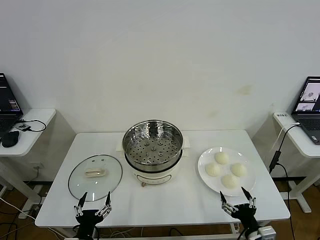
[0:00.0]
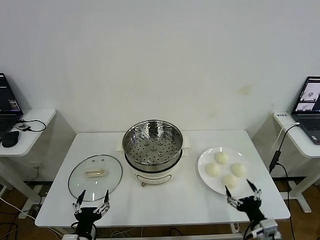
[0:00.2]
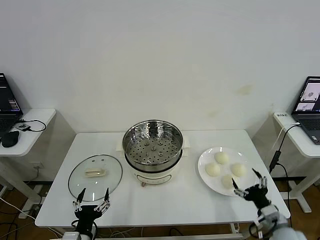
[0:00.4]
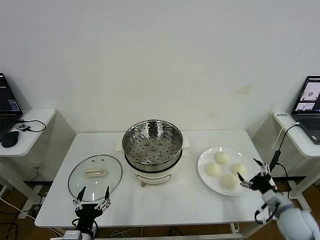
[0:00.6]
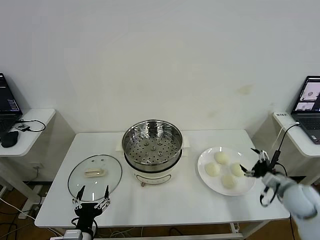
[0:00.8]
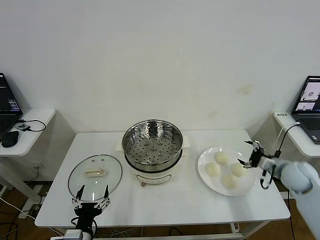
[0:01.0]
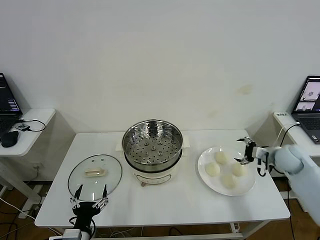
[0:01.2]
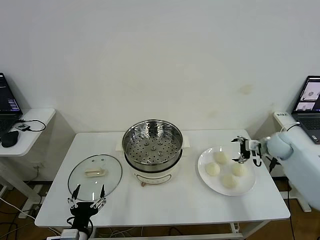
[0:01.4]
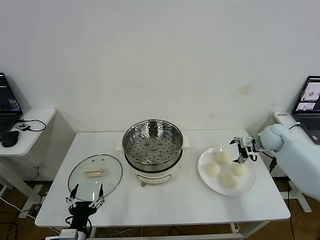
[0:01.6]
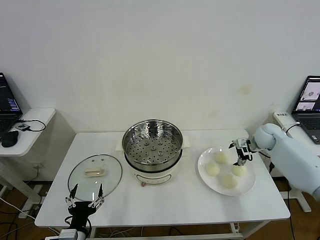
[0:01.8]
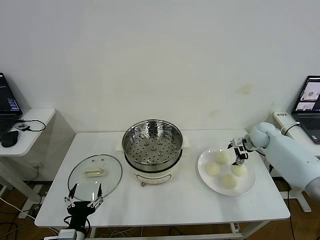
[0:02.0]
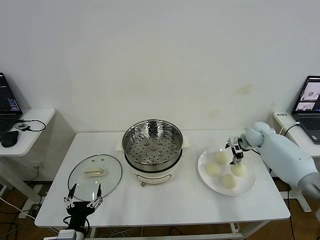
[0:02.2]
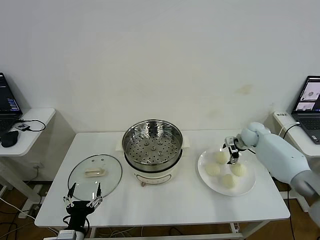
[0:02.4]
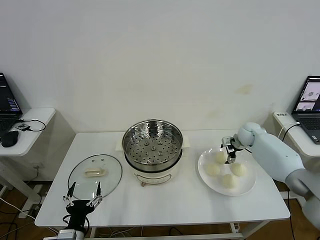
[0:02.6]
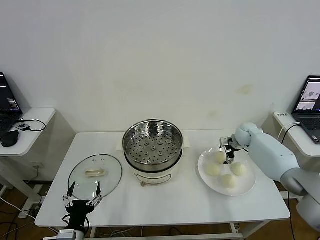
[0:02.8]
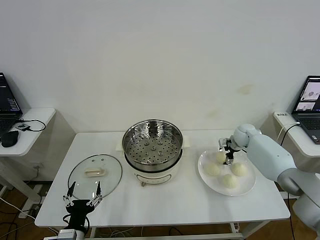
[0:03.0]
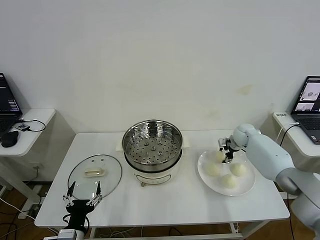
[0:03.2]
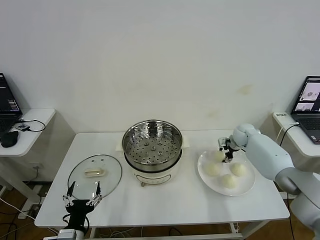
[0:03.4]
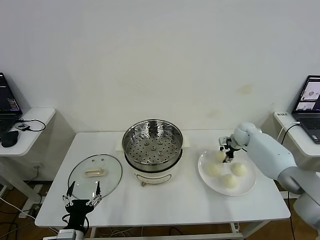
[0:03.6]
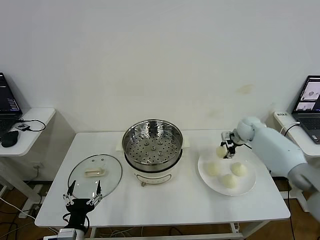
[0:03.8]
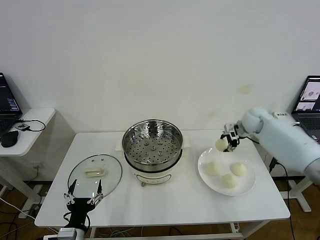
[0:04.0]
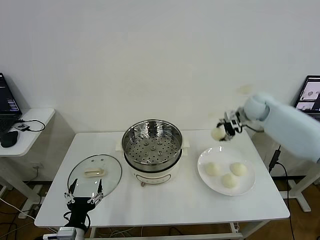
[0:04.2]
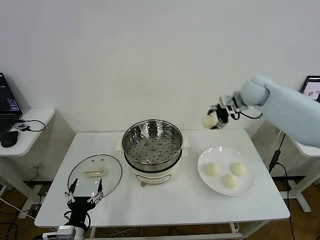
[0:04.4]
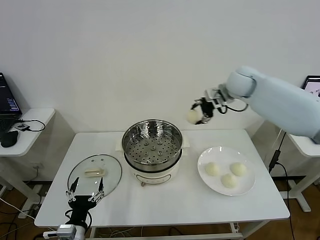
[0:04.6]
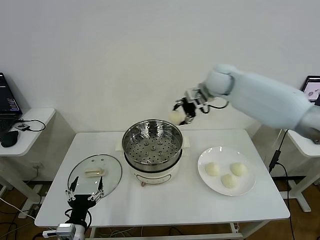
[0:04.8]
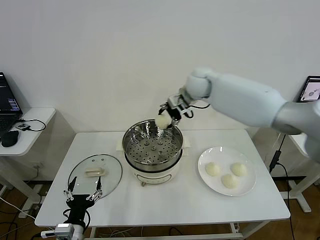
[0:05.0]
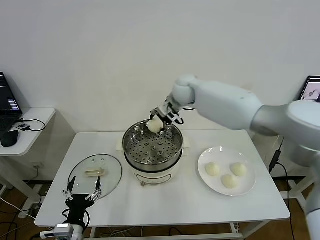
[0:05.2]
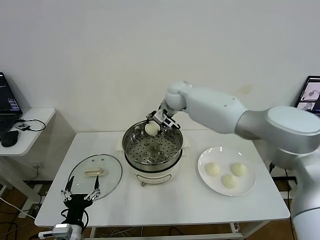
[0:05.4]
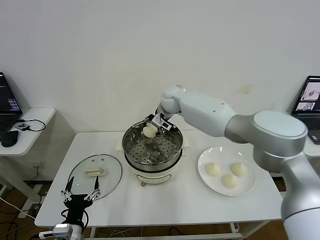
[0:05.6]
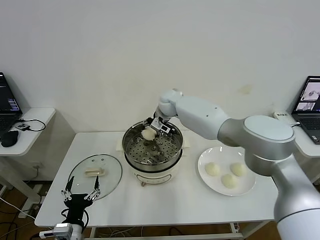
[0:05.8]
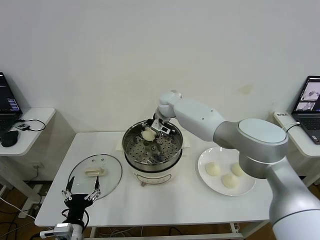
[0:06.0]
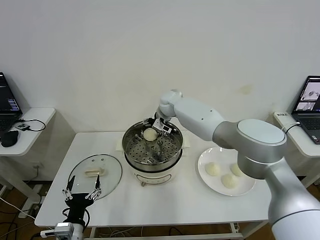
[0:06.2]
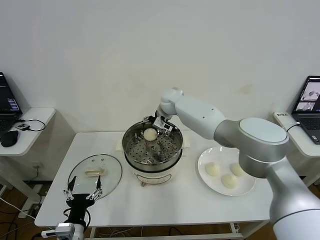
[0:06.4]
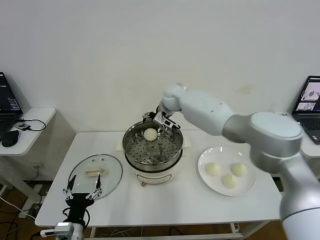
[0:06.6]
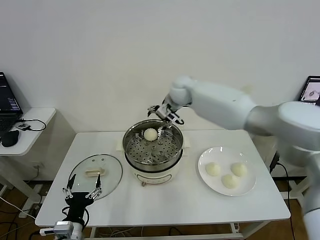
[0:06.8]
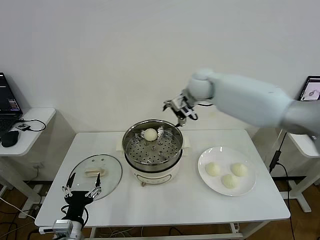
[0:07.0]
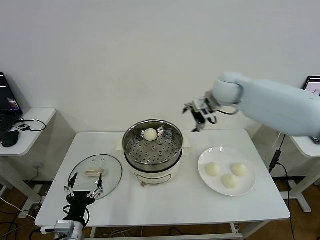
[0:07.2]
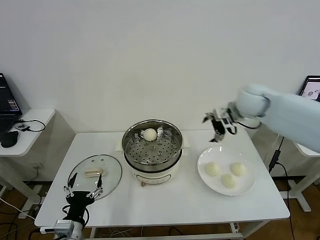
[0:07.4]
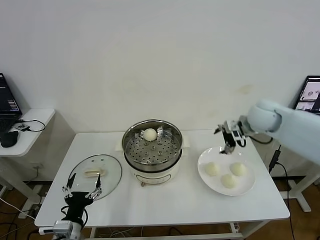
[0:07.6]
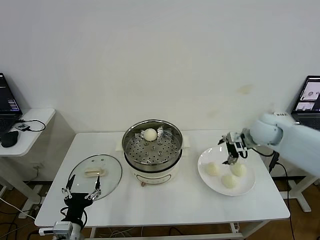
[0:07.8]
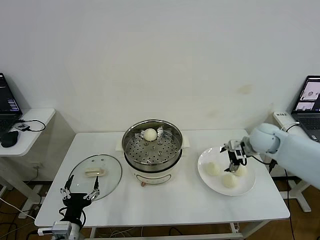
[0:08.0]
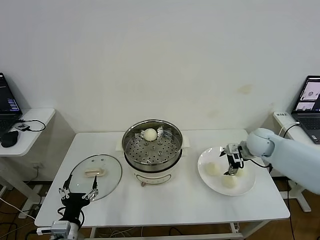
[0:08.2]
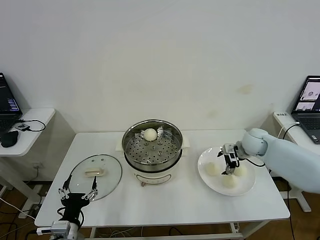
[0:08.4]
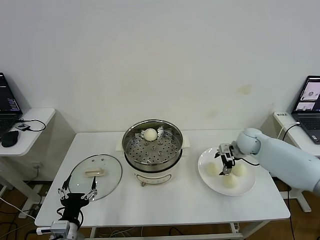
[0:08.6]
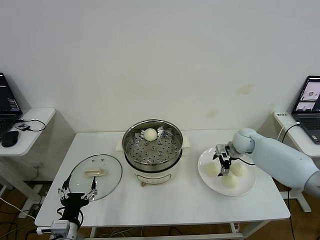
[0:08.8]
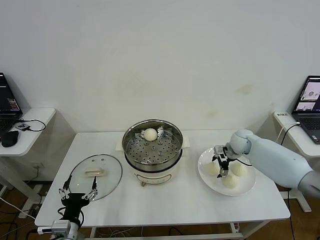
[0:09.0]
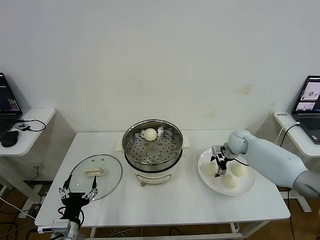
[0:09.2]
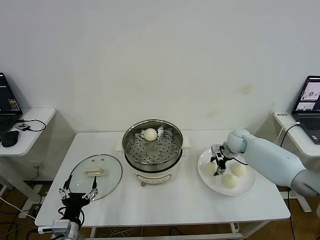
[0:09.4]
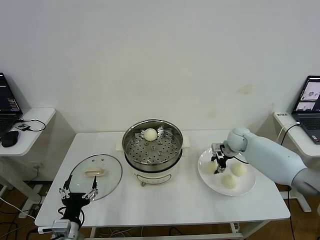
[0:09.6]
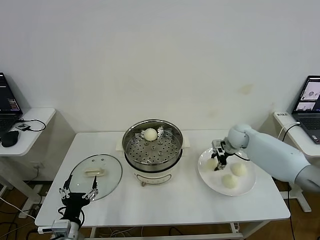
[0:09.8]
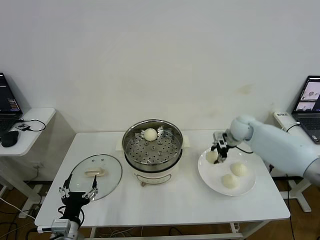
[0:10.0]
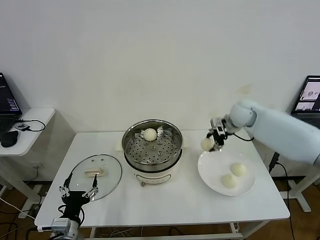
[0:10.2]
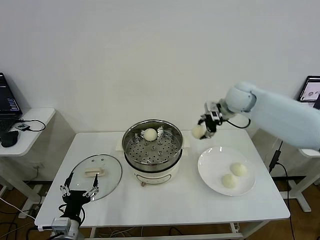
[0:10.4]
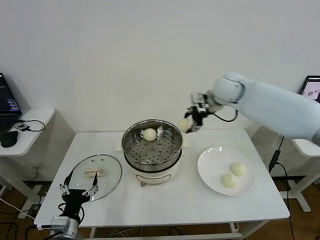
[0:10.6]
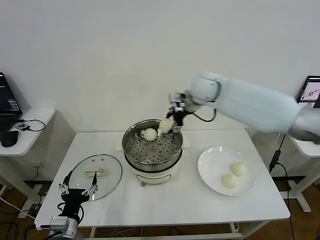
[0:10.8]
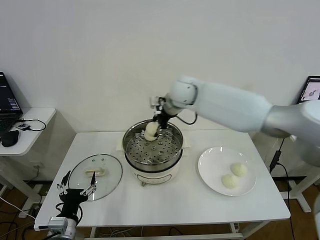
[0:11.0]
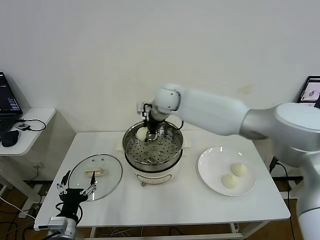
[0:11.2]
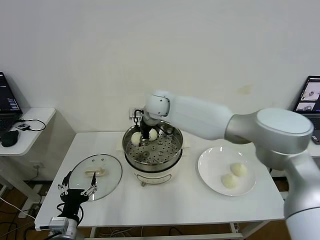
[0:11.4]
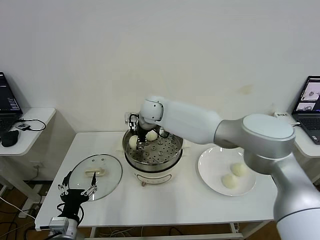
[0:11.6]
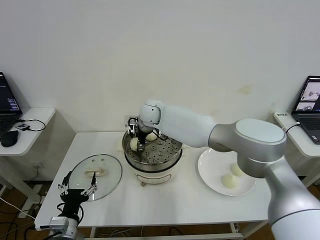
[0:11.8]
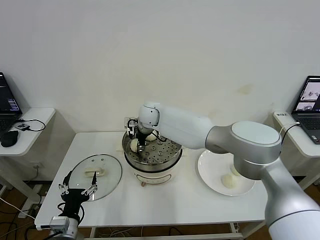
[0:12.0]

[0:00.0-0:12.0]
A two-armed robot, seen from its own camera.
Step, 0.0 to 3.0 s: Grasp the baozi in the plate with right gripper.
Step, 3.2 to 6.0 s: Place the baozi on the steamer with right gripper.
Step, 6.4 to 9.4 s: Grasp the baozi in the plate with right gripper.
1.6 to 3.0 s: The right gripper is displaced to the left and forward by roughly 10 cm, and closes.
3.0 to 4.4 s: The right gripper travels upward by about 25 cm.
4.4 to 6.0 s: The right gripper heads to the left and downward, covering roughly 25 cm.
6.0 to 7.6 s: The right gripper goes some 35 cm to the right and backward.
7.6 to 9.0 s: The right gripper travels downward and forward by some 15 cm.
9.0 to 10.4 s: The right gripper moves upward and to the left, roughly 25 cm, and closes.
10.4 to 12.0 s: The right gripper travels to the left and downward by approximately 30 cm, and opens up.

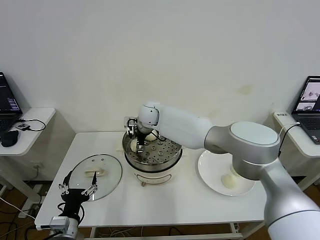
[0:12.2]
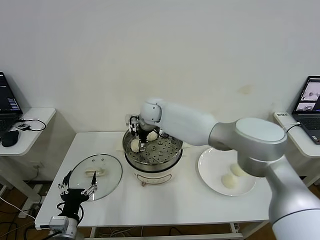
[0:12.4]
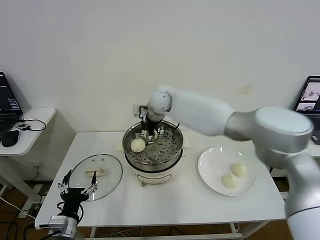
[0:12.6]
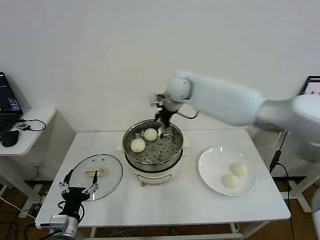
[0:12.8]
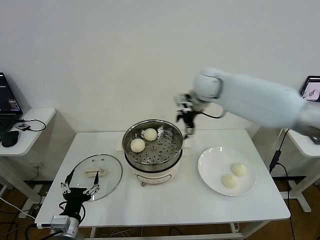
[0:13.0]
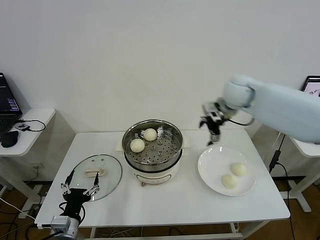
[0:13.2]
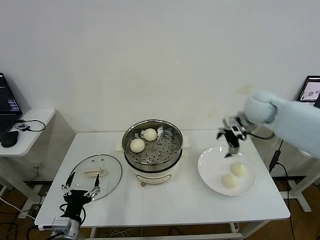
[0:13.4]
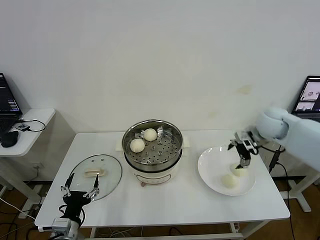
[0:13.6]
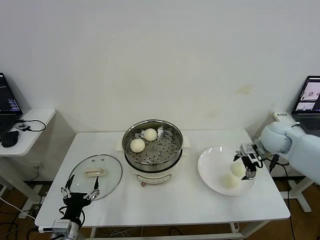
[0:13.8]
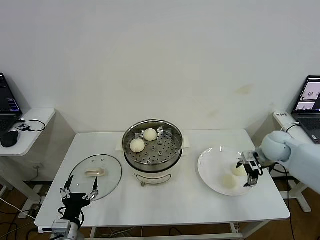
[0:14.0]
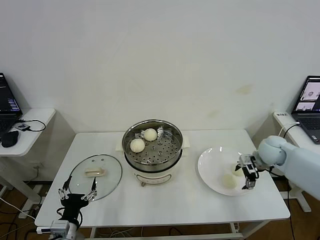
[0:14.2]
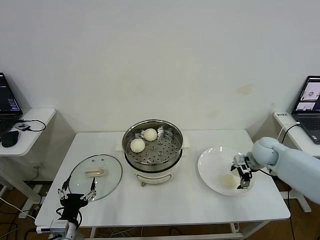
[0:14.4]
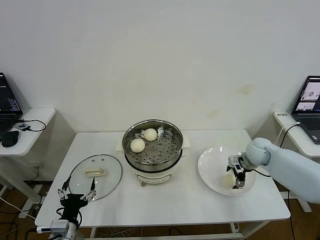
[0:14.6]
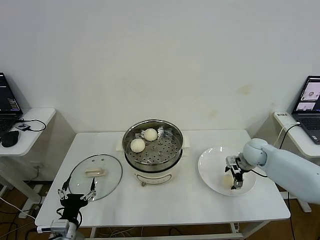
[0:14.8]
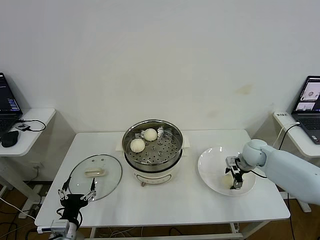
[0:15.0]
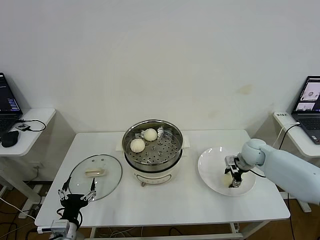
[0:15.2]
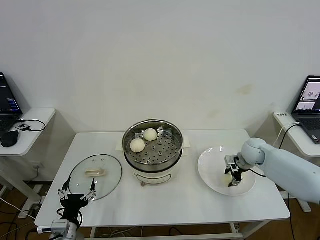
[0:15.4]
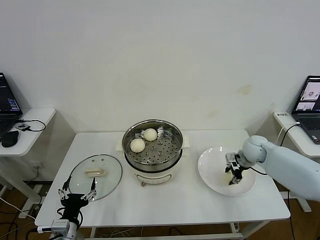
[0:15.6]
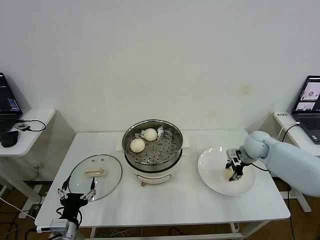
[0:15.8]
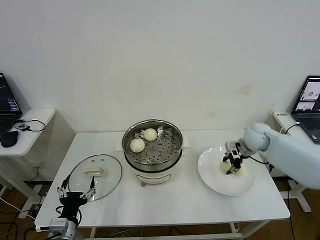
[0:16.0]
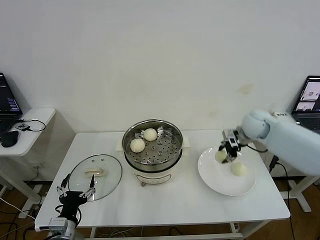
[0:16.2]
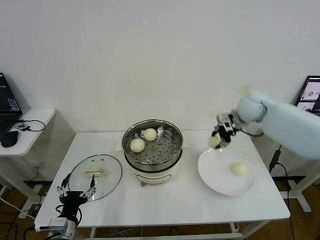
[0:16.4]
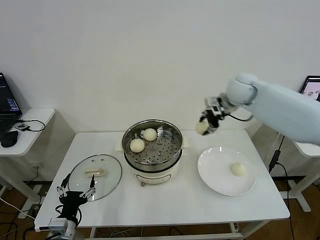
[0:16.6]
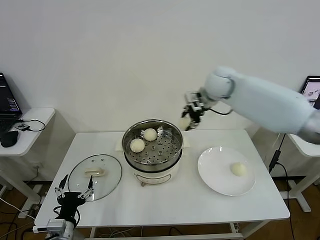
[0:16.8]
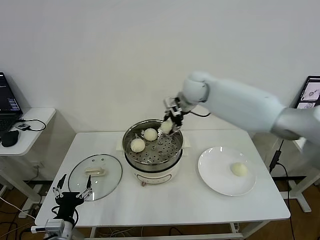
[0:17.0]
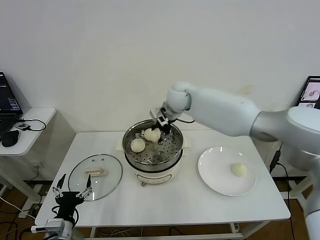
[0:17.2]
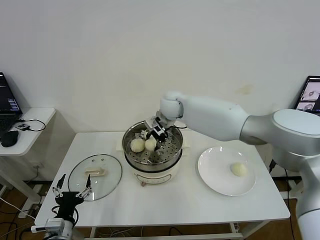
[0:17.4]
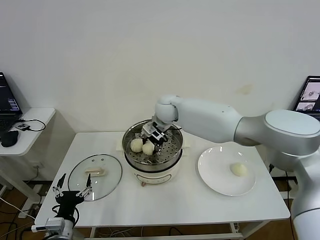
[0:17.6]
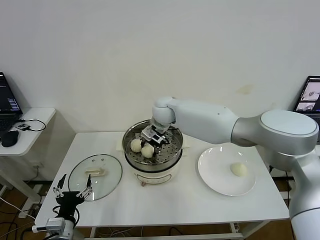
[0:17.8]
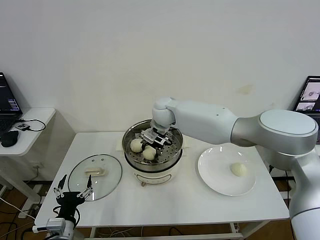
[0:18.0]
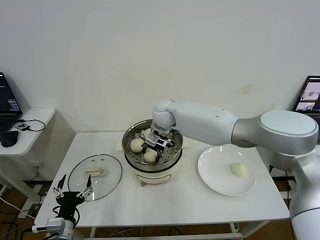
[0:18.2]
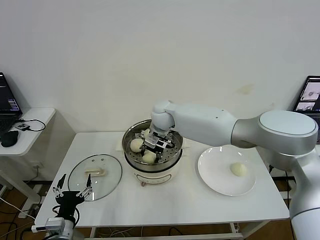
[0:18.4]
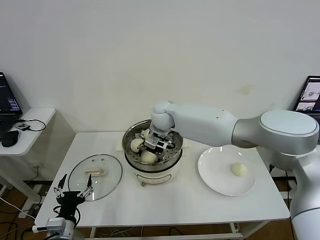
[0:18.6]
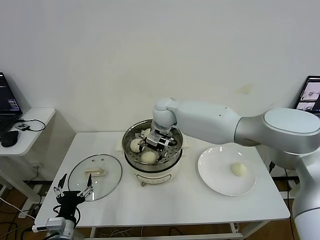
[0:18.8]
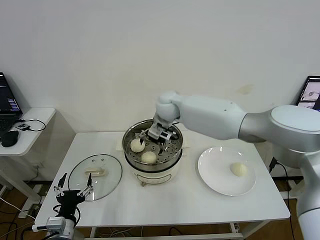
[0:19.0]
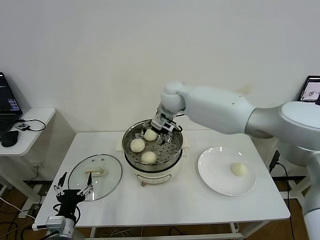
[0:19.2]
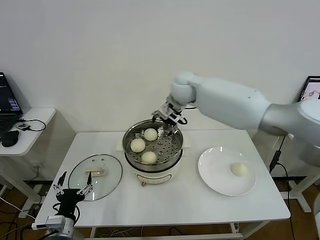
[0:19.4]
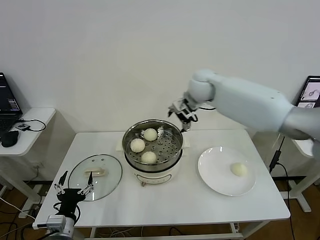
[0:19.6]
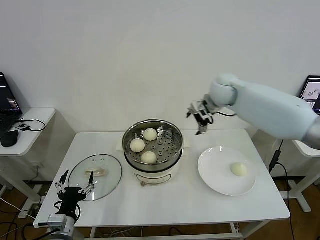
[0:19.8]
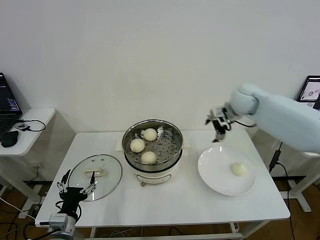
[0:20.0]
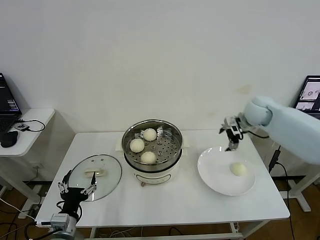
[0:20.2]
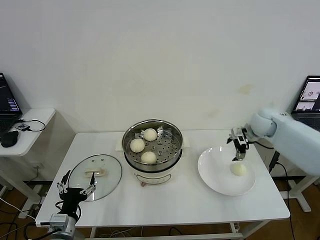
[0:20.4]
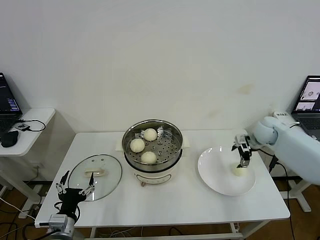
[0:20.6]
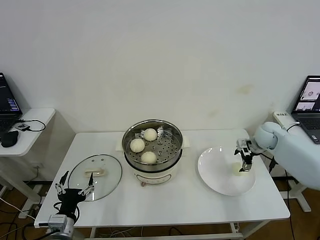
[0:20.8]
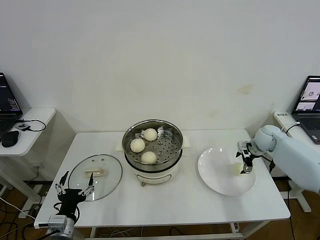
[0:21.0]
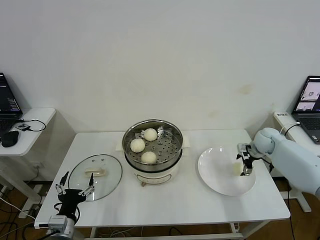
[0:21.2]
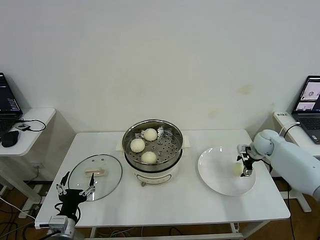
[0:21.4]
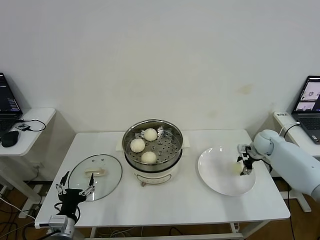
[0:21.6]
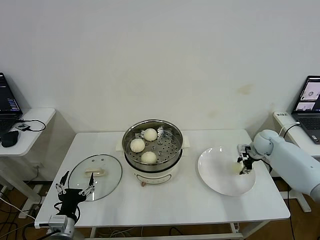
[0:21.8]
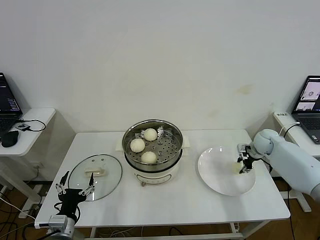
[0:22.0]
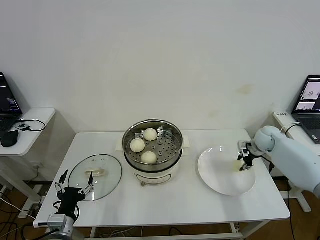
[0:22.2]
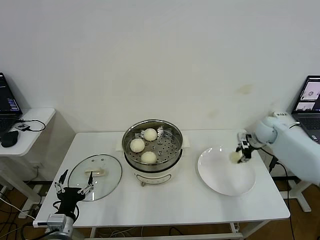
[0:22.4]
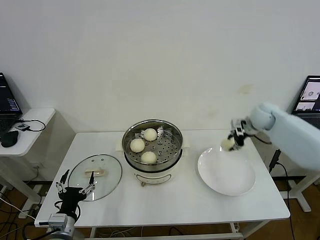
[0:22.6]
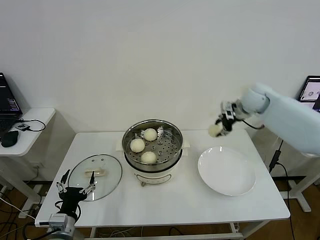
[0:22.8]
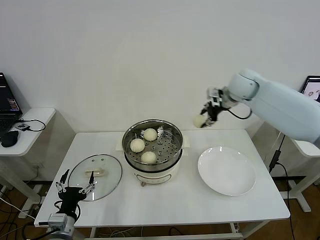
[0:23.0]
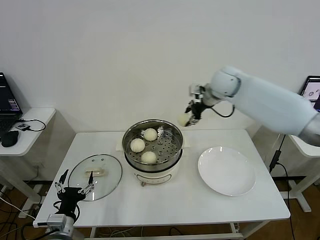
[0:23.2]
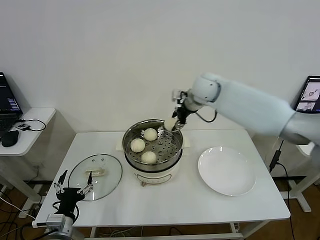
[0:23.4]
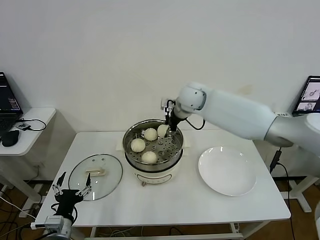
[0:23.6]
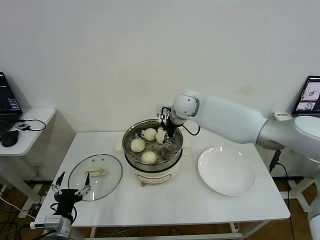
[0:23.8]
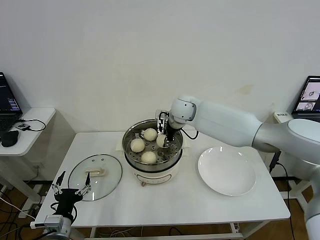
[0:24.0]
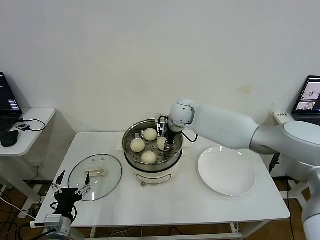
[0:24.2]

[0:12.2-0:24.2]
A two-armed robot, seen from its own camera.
Step, 12.4 to 15.4 s: Grasp the baozi in the plate with right gripper.
Step, 15.6 to 18.6 s: Place the baozi on the steamer with right gripper.
Step, 18.8 to 21.6 s: Grasp the baozi in the plate with right gripper.
12.2 to 13.8 s: The right gripper heads to the right, covering some 40 cm.
13.8 to 15.2 s: The right gripper is displaced downward by approximately 10 cm, and closes up.
15.2 to 16.6 s: The right gripper is displaced upward and to the left by roughly 25 cm.
16.6 to 18.2 s: The right gripper is displaced to the left and downward by approximately 25 cm.
18.2 to 19.8 s: The right gripper goes about 20 cm to the right, and opens up.
19.8 to 21.2 s: The right gripper shifts about 25 cm downward and to the right.
21.2 to 22.6 s: The right gripper heads upward and to the left, covering roughly 15 cm, and closes up.
22.6 to 24.2 s: The right gripper shifts roughly 30 cm to the left.
